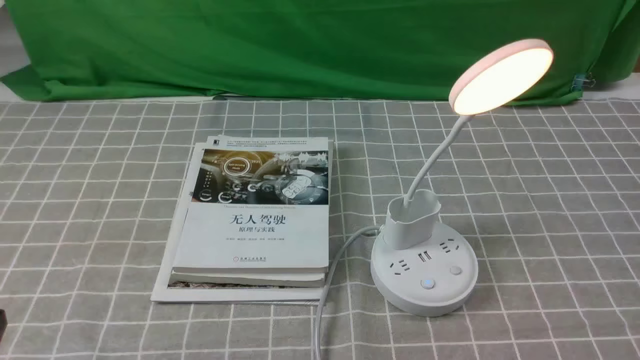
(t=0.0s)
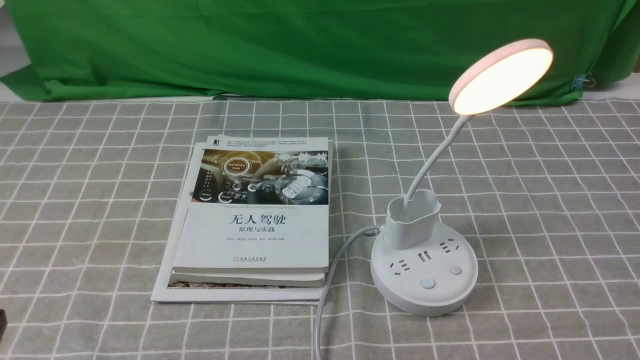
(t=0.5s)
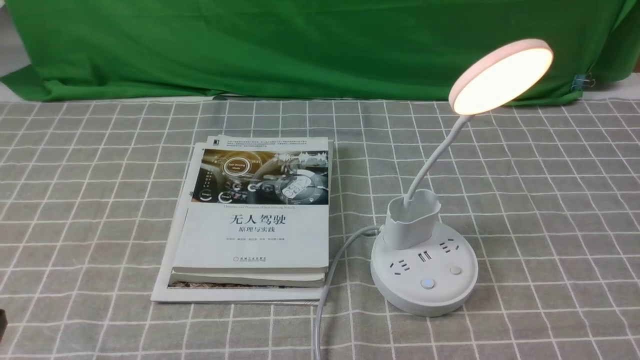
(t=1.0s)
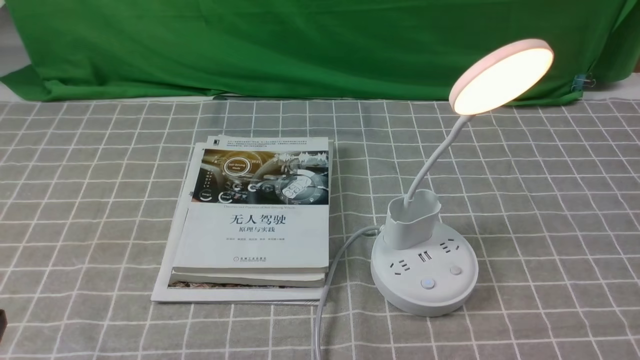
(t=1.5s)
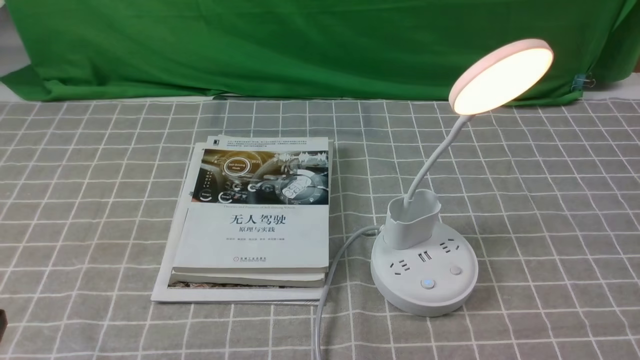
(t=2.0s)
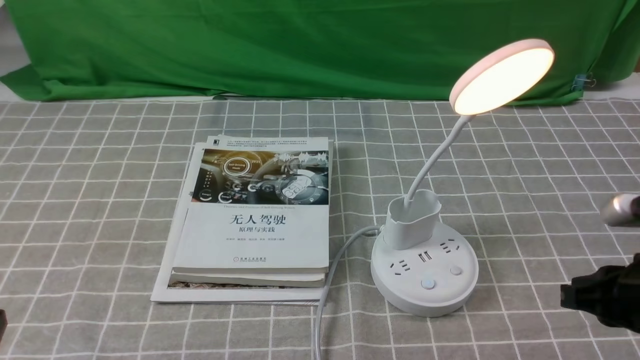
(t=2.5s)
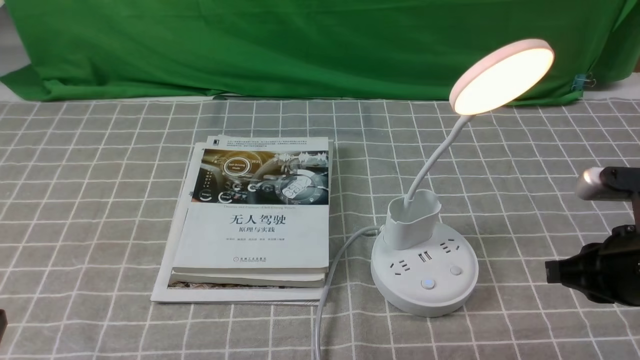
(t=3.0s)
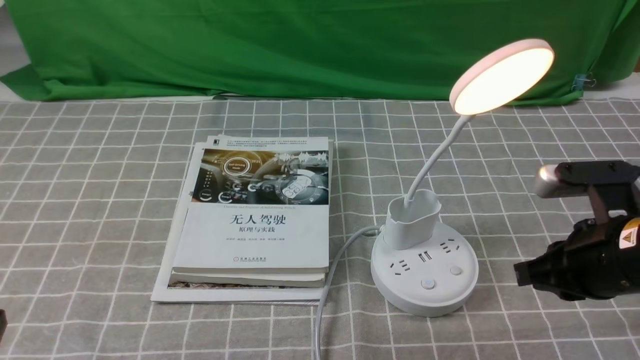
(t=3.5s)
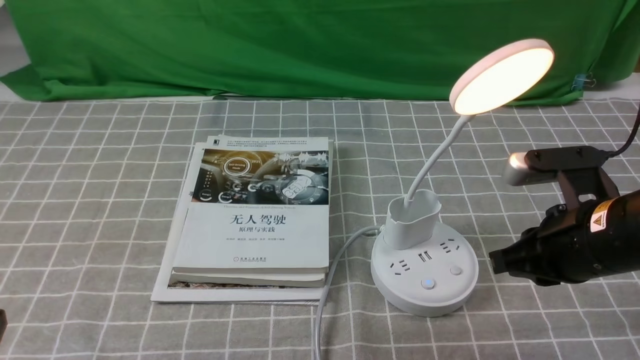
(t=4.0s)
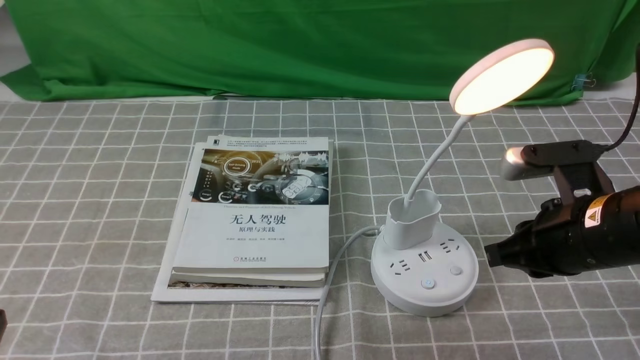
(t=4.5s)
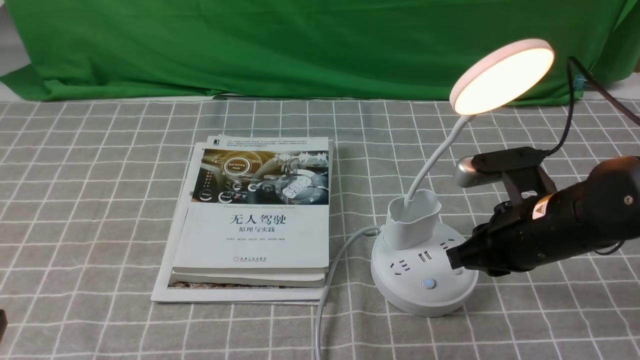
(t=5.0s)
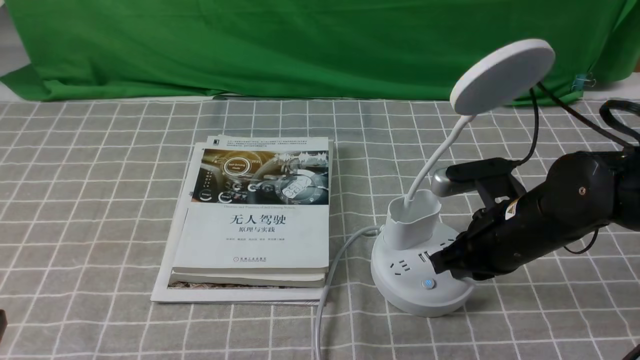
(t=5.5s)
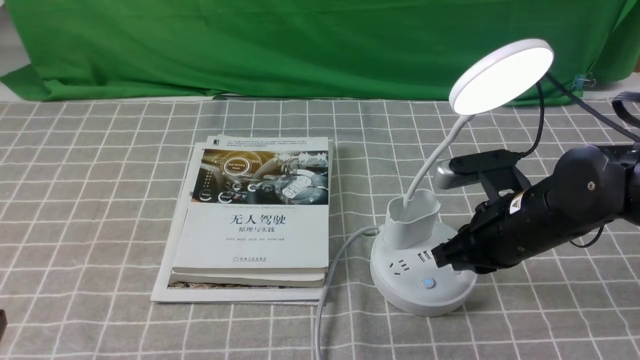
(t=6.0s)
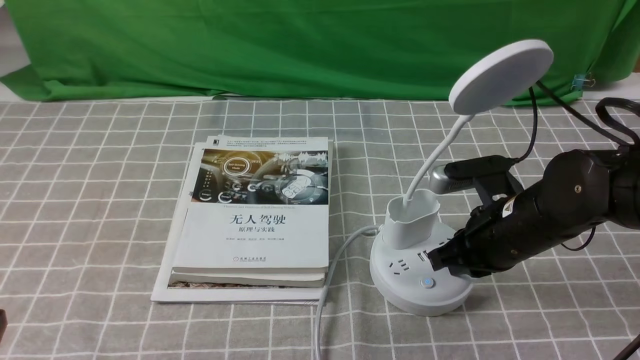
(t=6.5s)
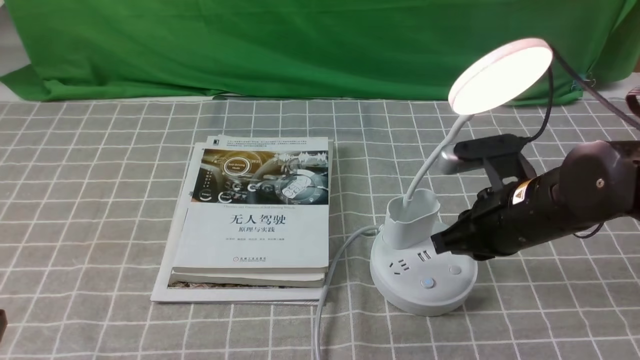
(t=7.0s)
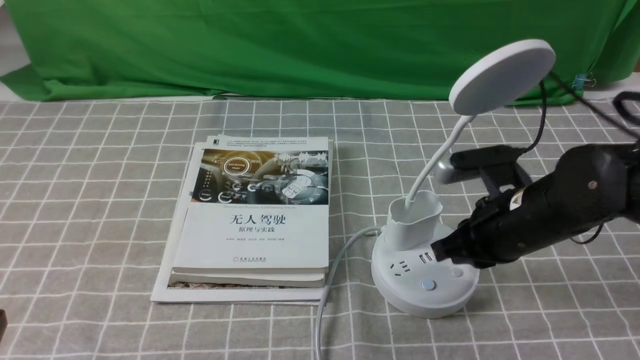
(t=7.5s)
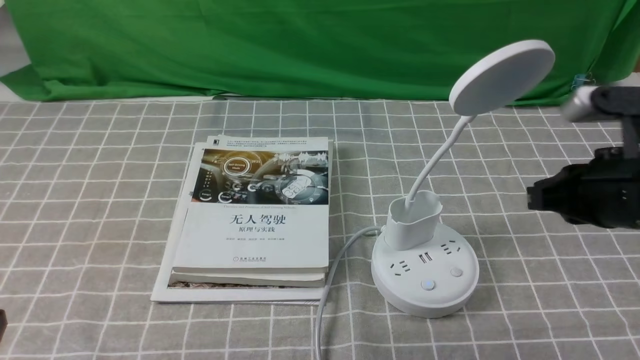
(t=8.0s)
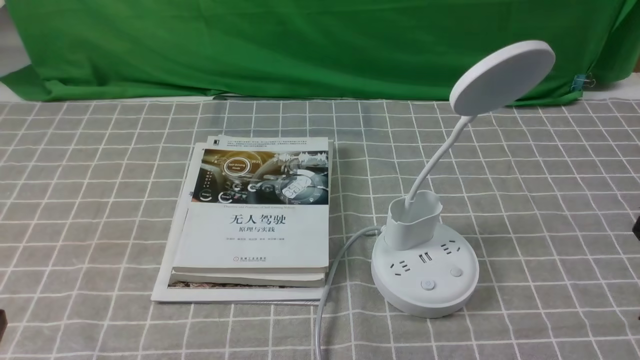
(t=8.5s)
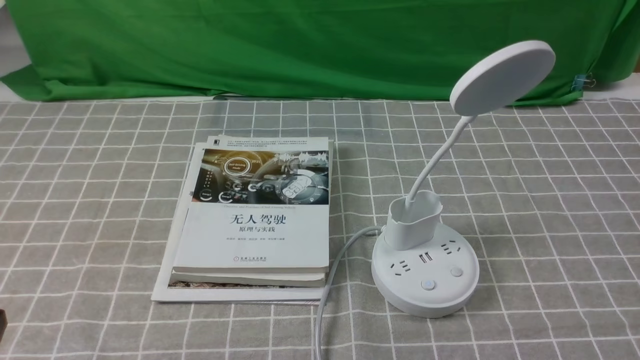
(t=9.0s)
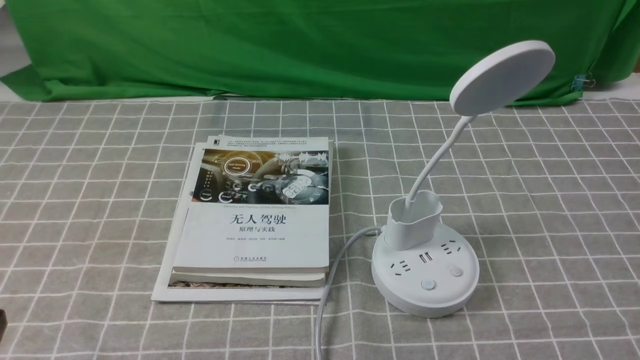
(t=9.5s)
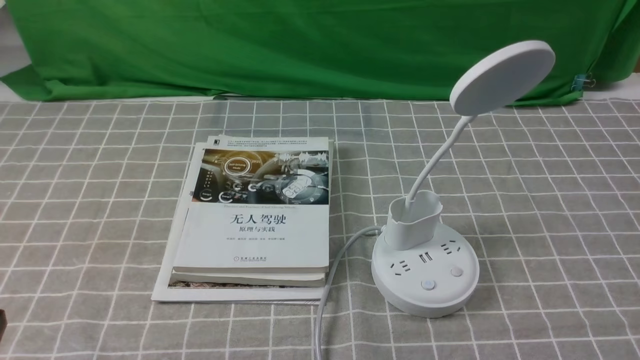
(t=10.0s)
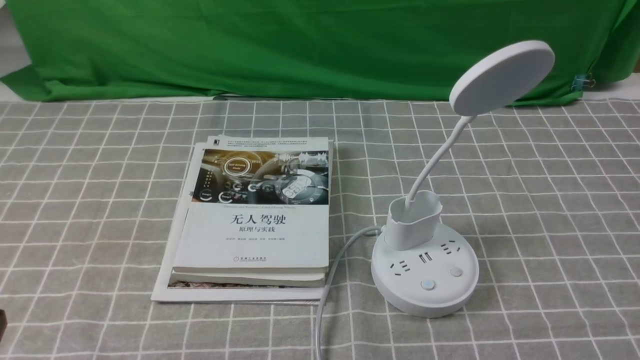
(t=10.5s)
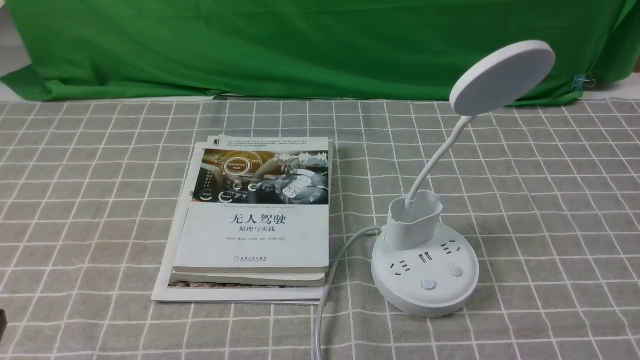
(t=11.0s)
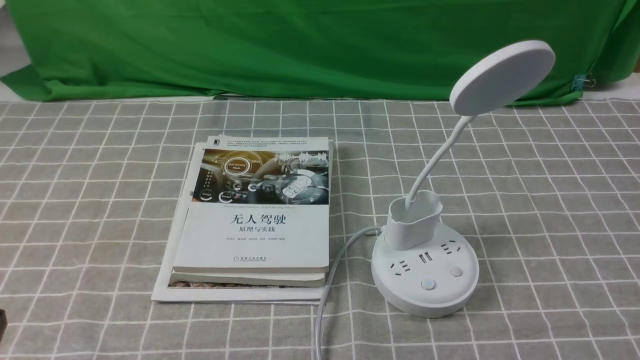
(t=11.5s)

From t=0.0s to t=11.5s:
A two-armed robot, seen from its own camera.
Task of the whole recording: turn off the desk lamp on the grey coffee tablecloth by hand.
Step, from t=0.0s to t=7.5s: use the right arm to press the button switch on the lamp holder.
From t=2.0s to t=4.0s: The right gripper heads forward and to the left, covering some 15 cm.
From t=4.0s to t=6.0s: The right gripper travels forward by roughly 5 cm, and closes.
From t=6.0s to t=7.5s: The grippers make only small movements.
From t=7.5s to t=9.5s: The right gripper heads backward and to the right, covering approximately 20 cm.
